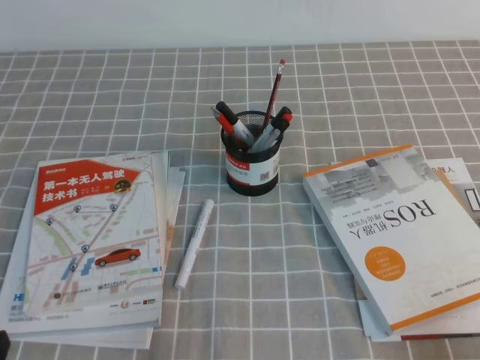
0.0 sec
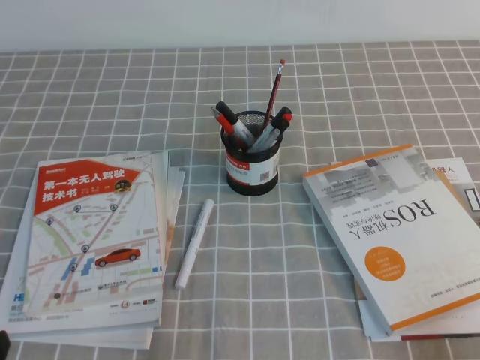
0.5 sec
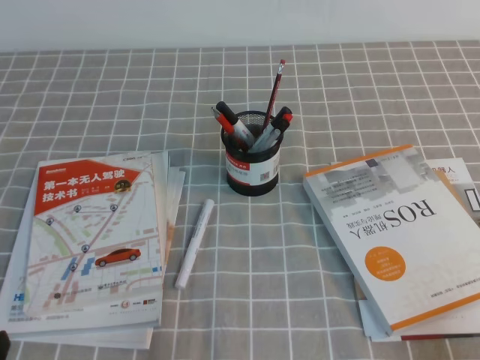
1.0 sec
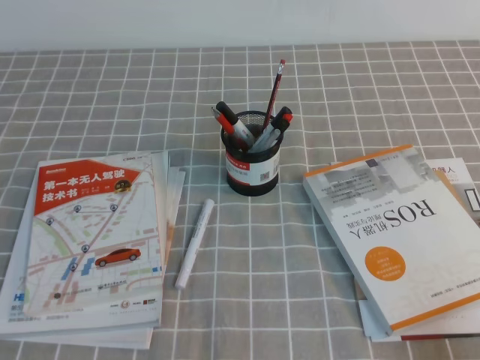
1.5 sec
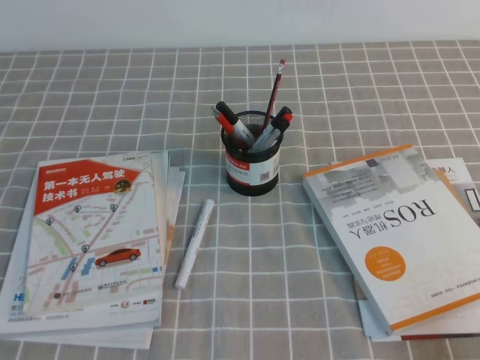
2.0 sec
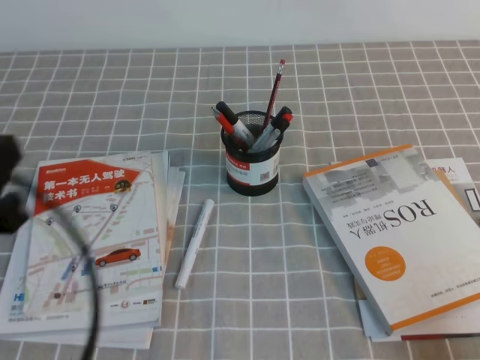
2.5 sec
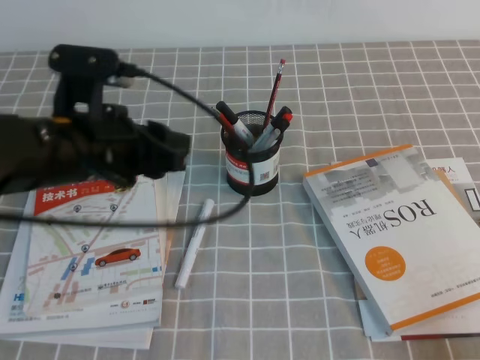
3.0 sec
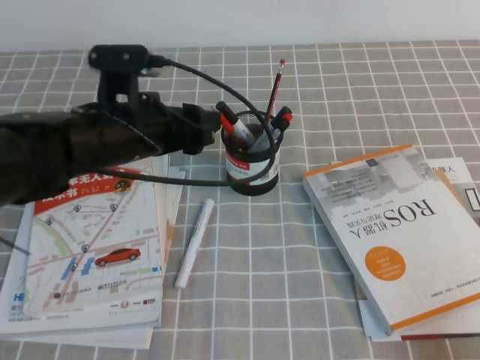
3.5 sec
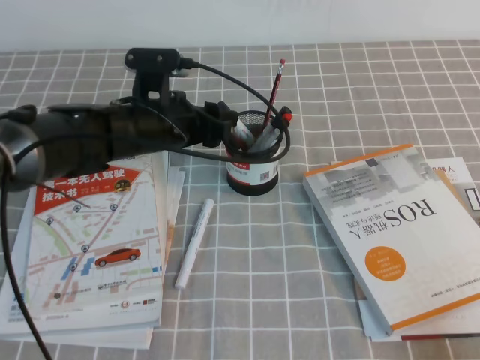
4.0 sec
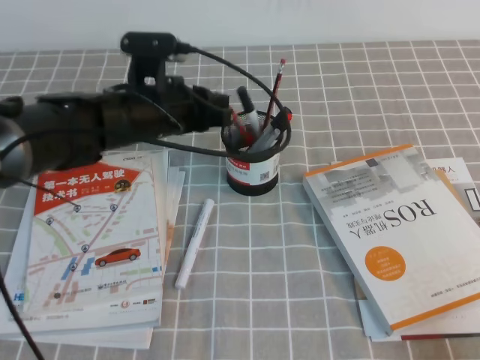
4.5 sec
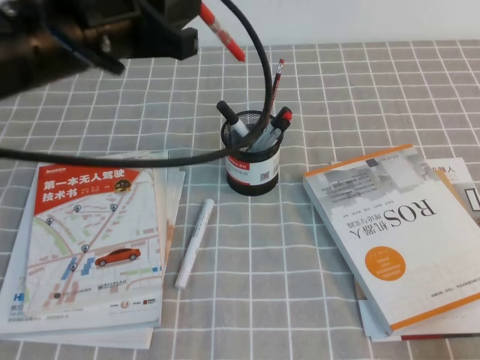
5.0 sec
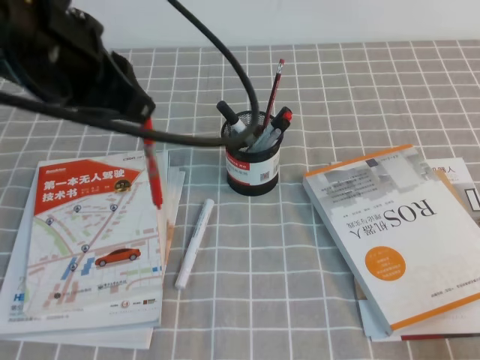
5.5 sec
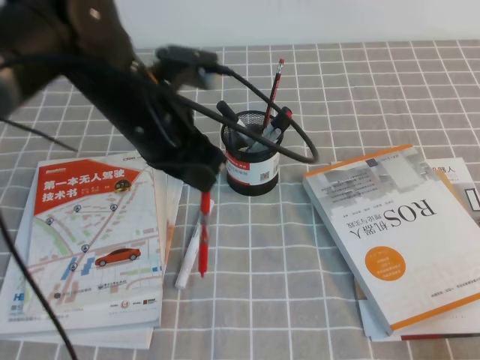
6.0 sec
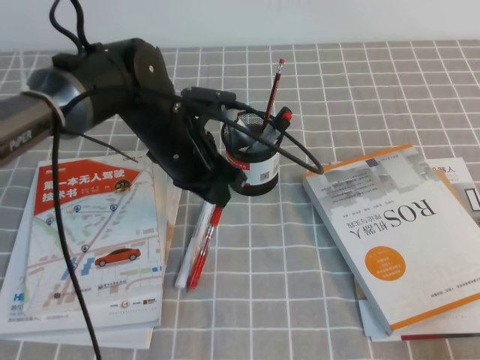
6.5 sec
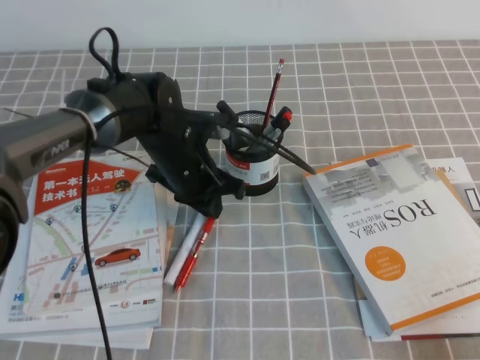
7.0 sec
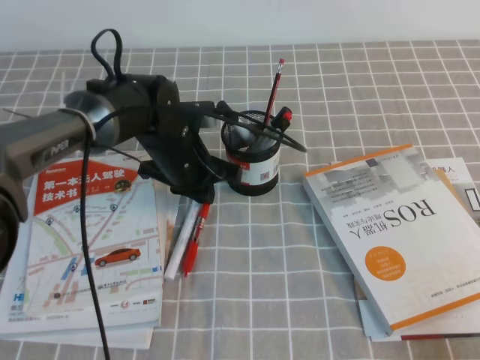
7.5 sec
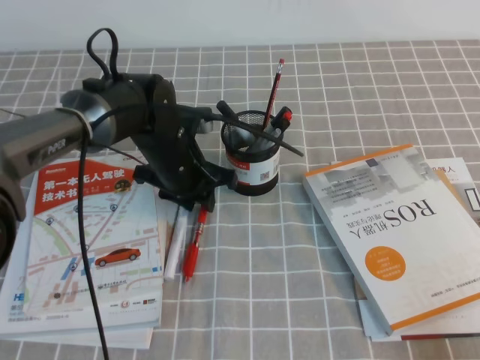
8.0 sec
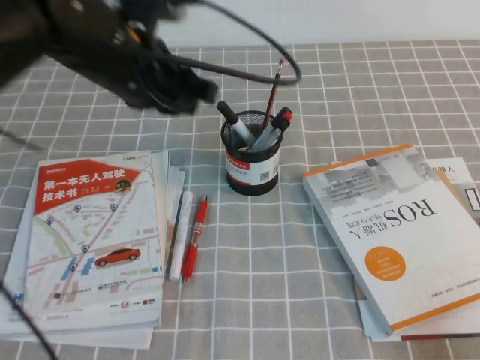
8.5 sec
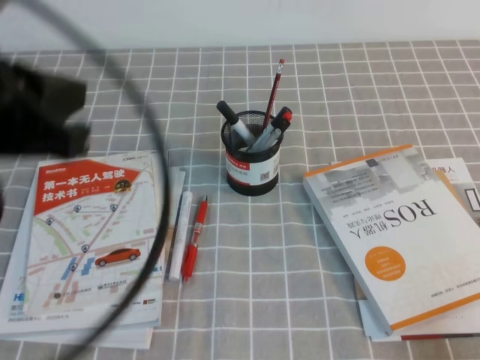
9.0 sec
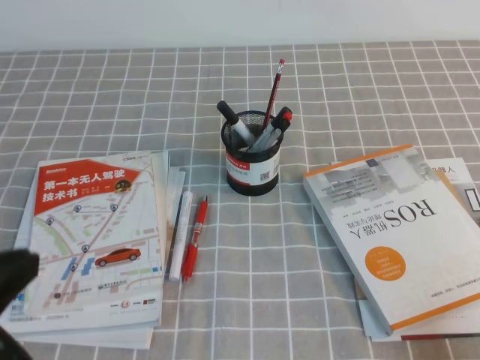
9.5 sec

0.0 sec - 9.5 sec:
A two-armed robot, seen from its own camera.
Step, 0.0 sec - 2.5 sec: Pick up the pen with the left gripper.
Step, 3.0 sec - 5.0 sec: Place the pen on the table with the left gripper.
2.0 sec - 4.0 sec: The left gripper is displaced forward and to the right by about 35 cm, and opens.
4.0 sec - 5.5 sec: The left gripper shifts approximately 20 cm upward and backward, and closes its fingers.
5.5 sec - 7.5 sec: The left gripper shifts some 25 cm downward and forward.
7.5 sec - 9.5 sec: The left gripper is displaced backward, upward and to the left by about 40 cm, and opens and closes again.

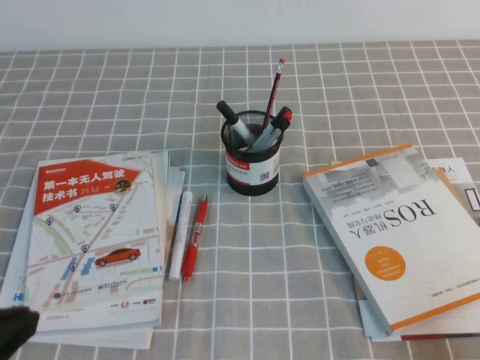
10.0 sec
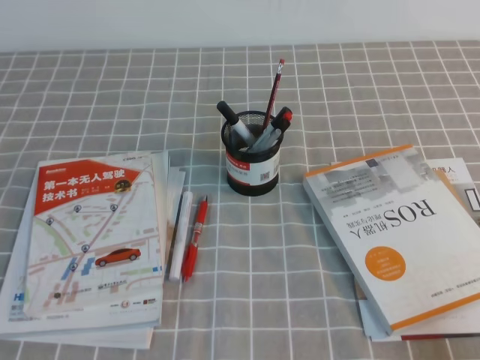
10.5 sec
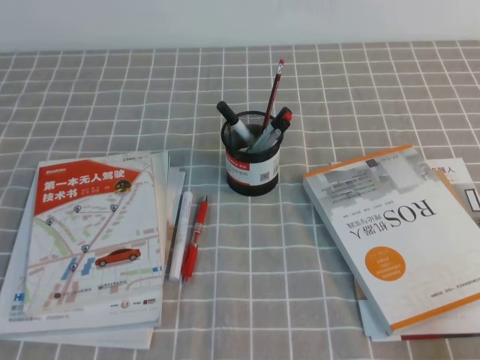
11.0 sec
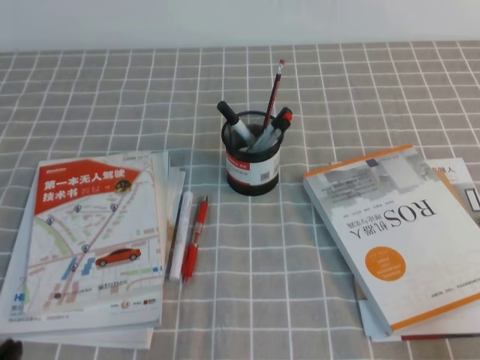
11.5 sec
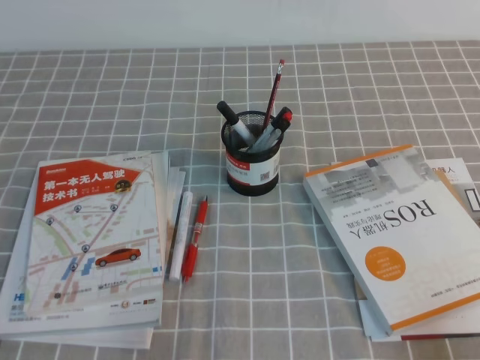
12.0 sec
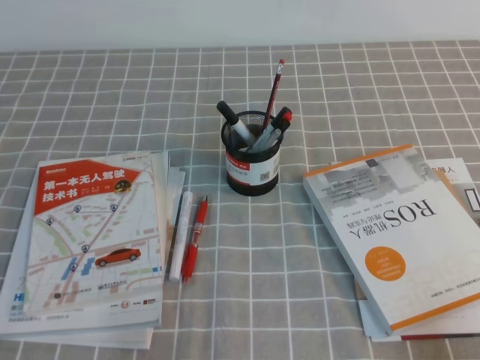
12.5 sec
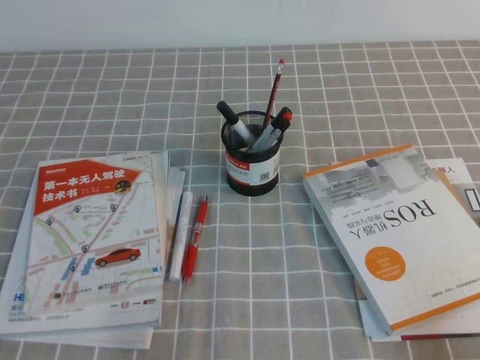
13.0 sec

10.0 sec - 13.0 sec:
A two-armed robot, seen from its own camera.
10.0 sec - 11.5 sec: The left gripper travels downward by about 15 cm.

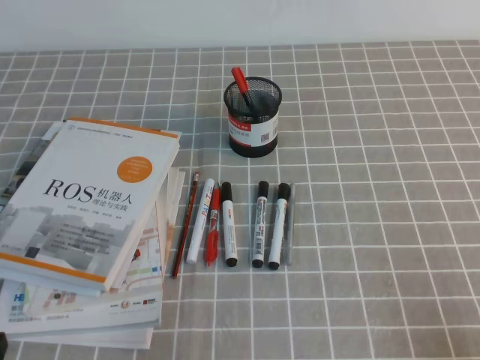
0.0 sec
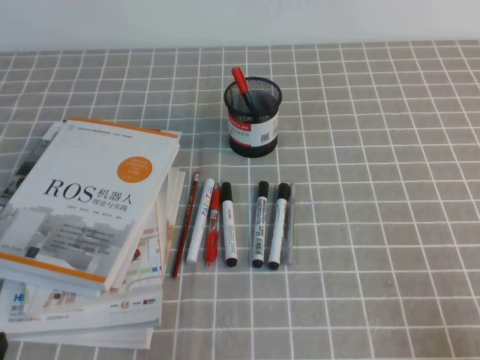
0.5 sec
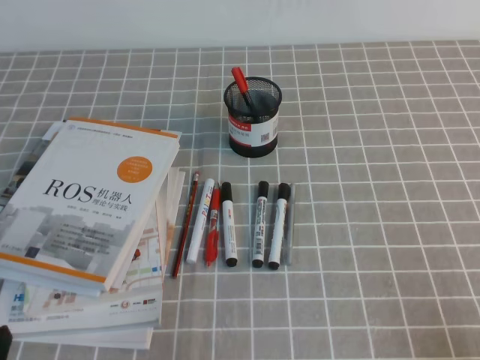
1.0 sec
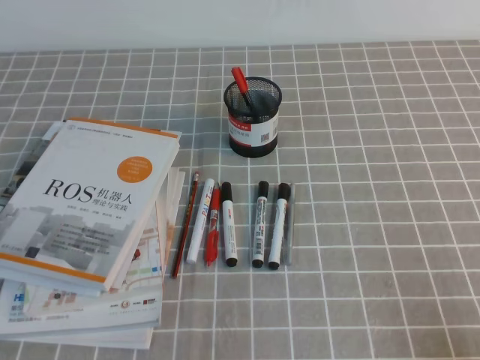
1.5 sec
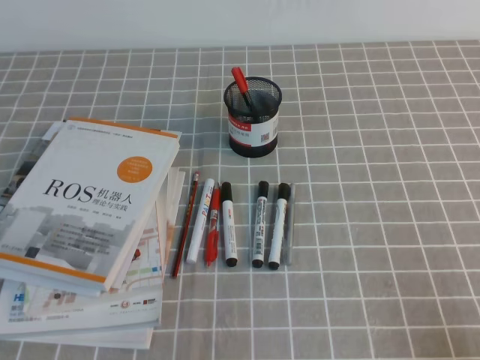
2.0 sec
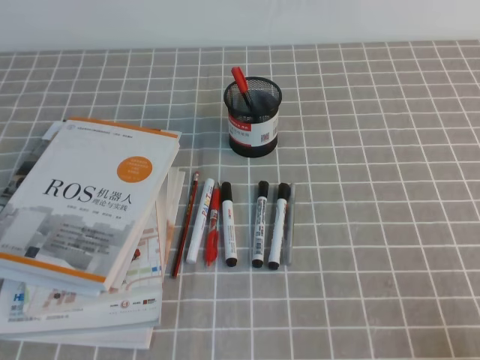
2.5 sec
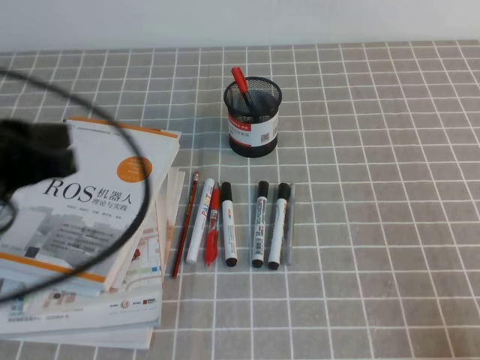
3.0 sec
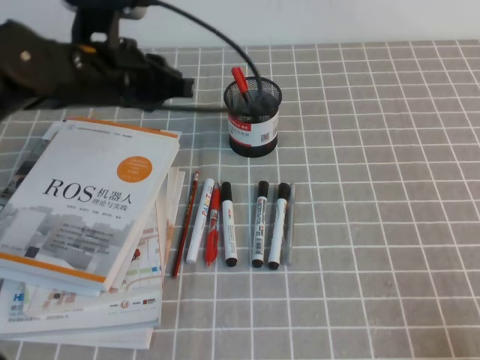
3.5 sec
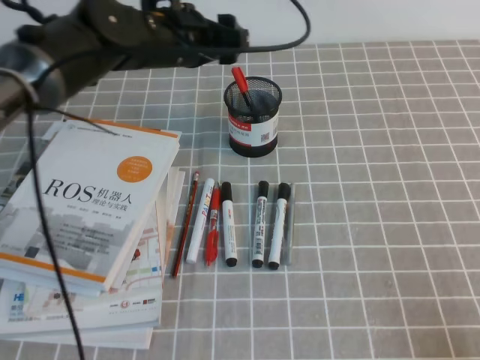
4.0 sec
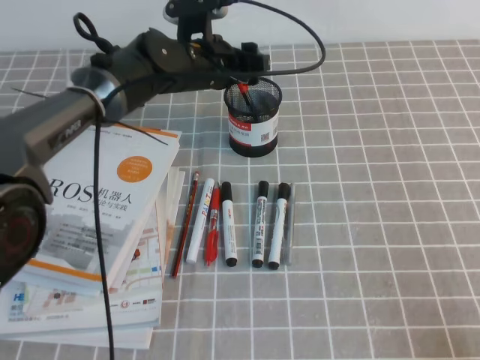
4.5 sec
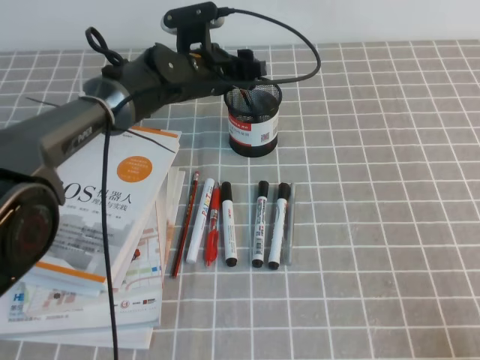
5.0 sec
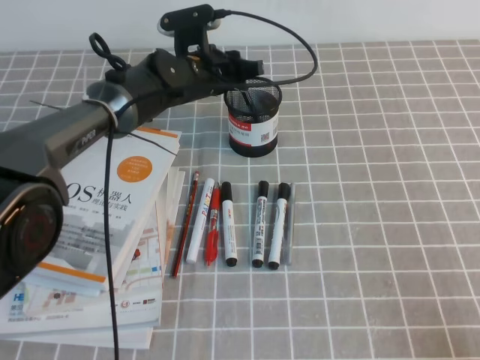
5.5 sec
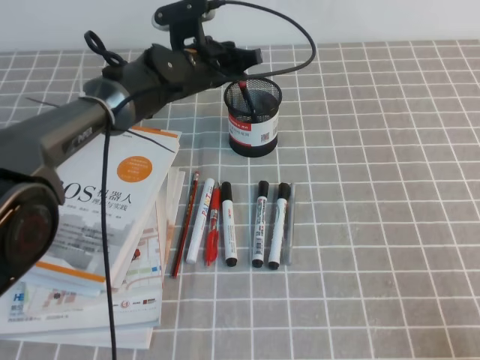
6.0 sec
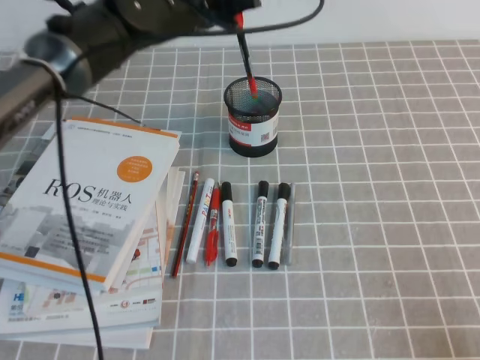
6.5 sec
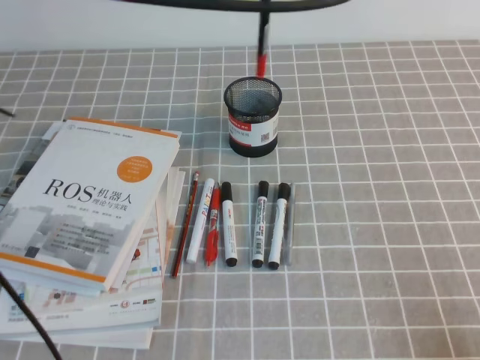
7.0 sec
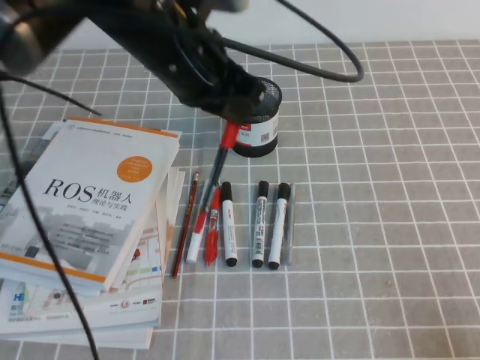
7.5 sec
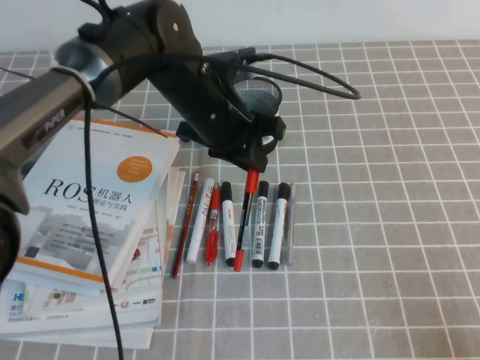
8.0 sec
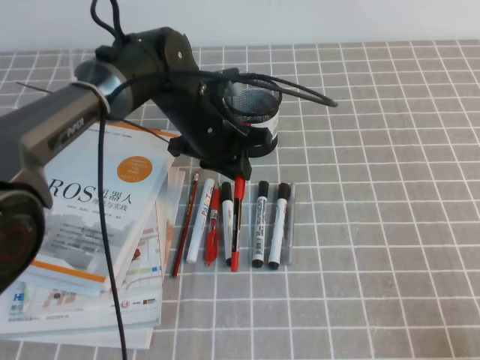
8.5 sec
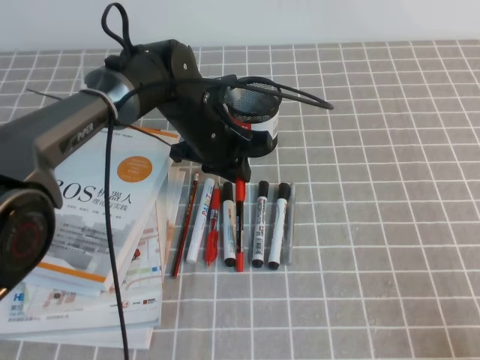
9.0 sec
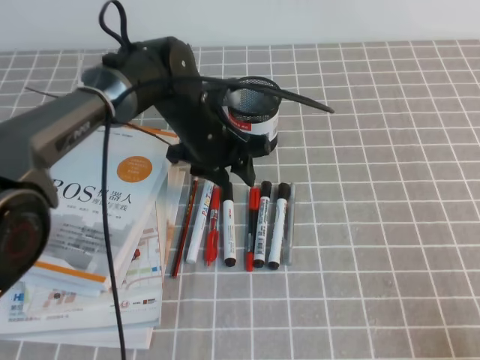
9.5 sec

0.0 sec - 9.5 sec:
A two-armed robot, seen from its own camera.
2.0 sec - 4.0 sec: The left gripper shifts roughly 40 cm forward and to the right, and opens up.
4.0 sec - 5.5 sec: The left gripper moves downward and forward, some 10 cm, and closes its fingers.
5.5 sec - 7.5 sec: The left gripper is displaced backward and upward by roughly 20 cm, and closes its fingers.
7.5 sec - 9.5 sec: The left gripper travels downward and forward by about 15 cm, and opens its fingers.

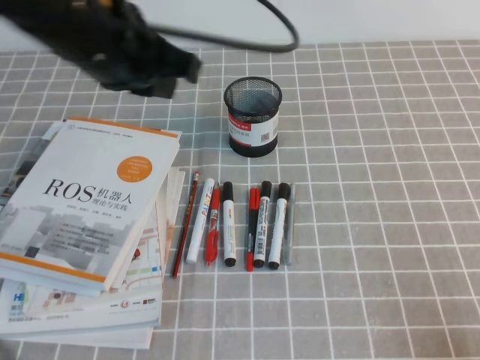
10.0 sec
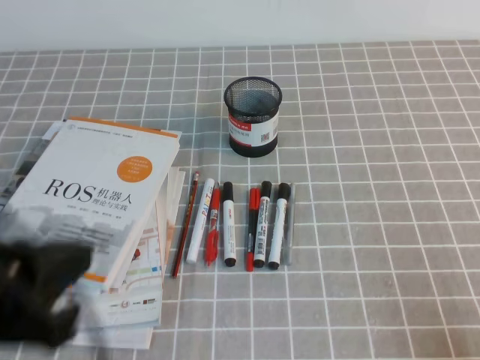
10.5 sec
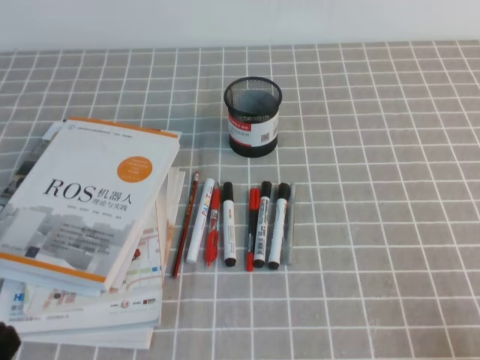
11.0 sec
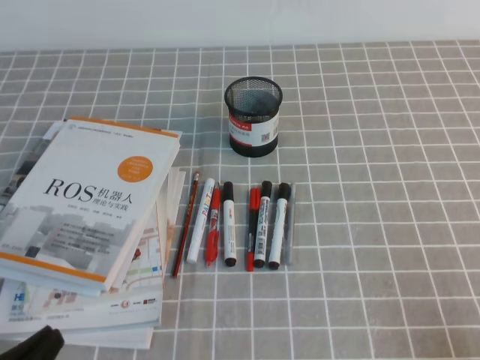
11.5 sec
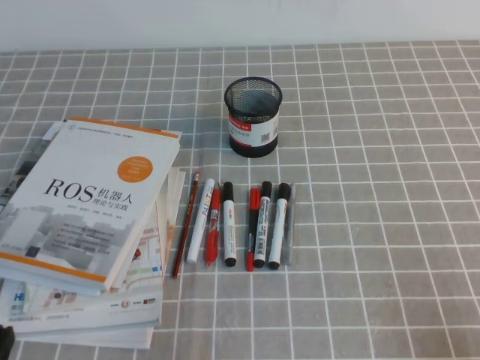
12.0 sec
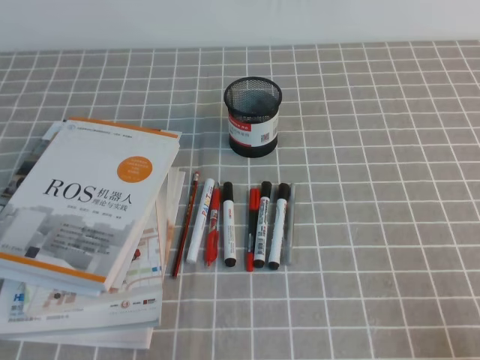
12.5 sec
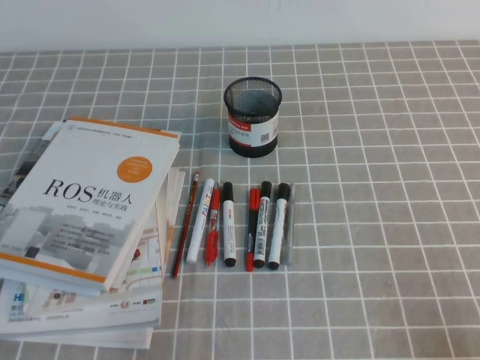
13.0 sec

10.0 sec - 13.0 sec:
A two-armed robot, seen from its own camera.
Step, 10.0 sec - 13.0 sec: Pick up the pen from the pen holder.
10.0 sec - 11.5 sec: The left gripper travels backward, downward and to the left by roughly 35 cm.
